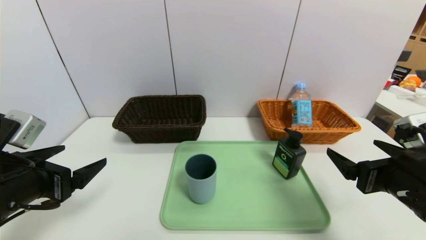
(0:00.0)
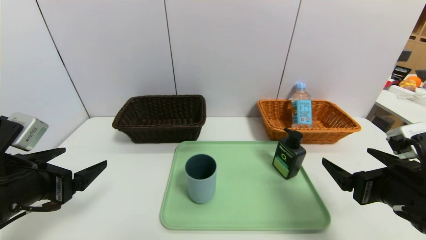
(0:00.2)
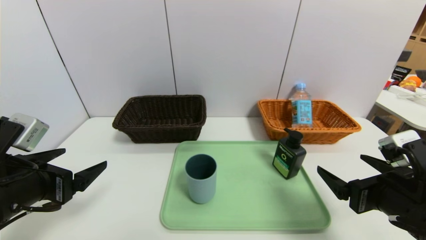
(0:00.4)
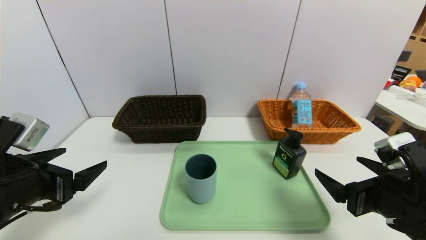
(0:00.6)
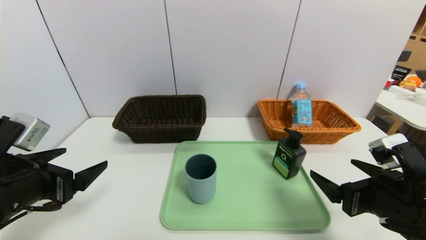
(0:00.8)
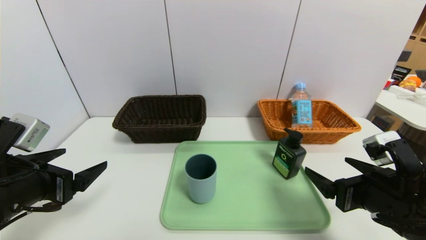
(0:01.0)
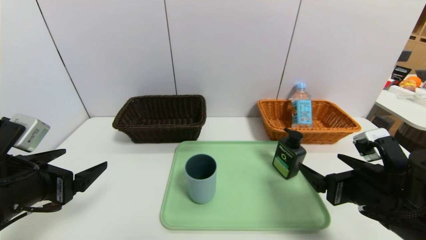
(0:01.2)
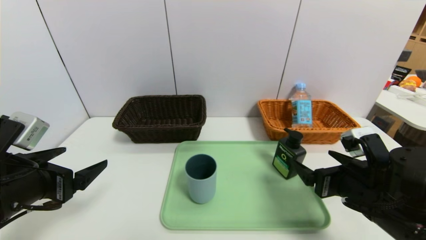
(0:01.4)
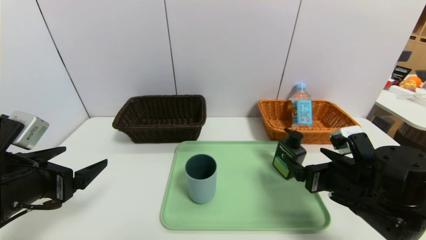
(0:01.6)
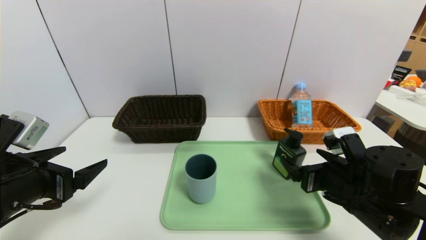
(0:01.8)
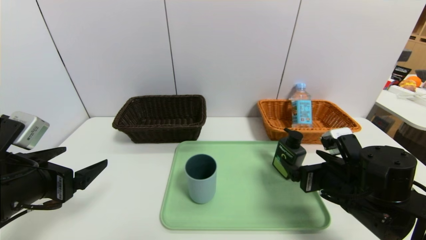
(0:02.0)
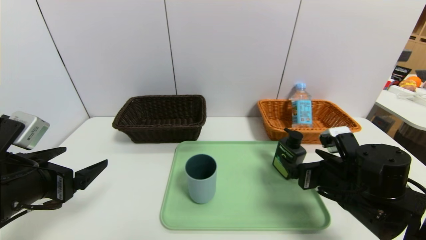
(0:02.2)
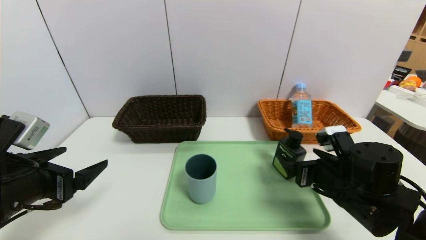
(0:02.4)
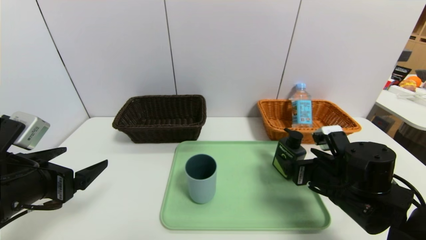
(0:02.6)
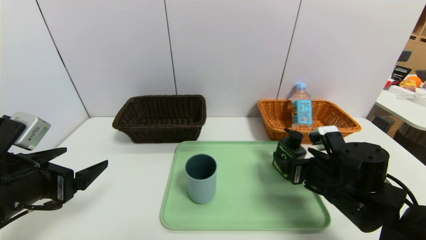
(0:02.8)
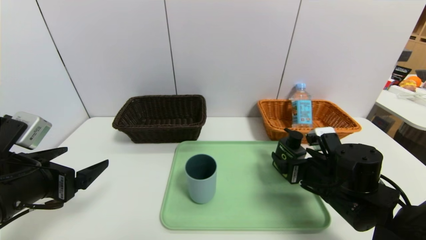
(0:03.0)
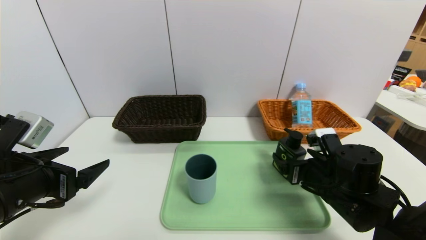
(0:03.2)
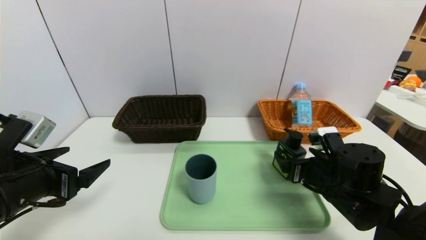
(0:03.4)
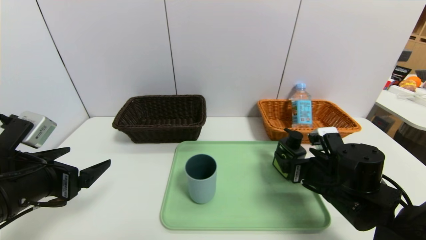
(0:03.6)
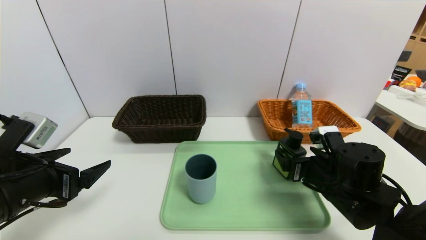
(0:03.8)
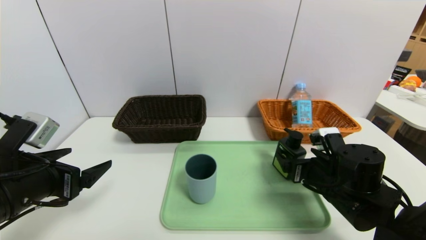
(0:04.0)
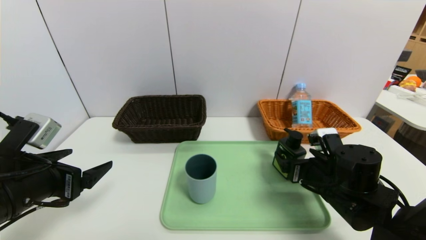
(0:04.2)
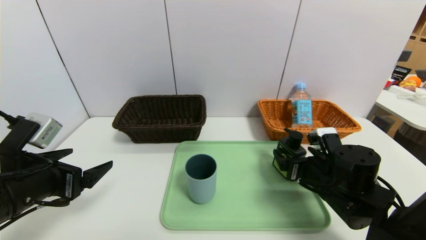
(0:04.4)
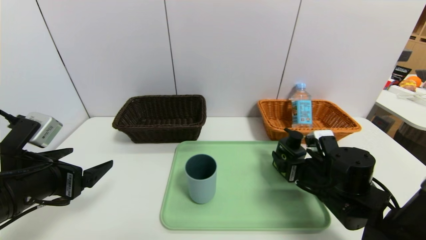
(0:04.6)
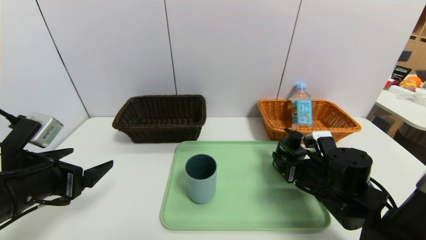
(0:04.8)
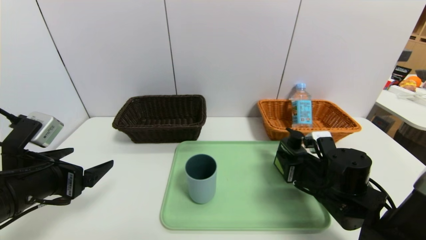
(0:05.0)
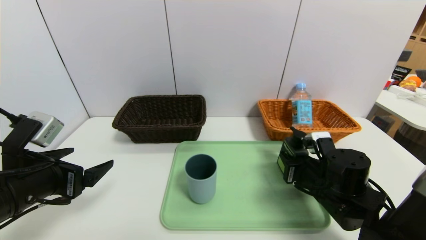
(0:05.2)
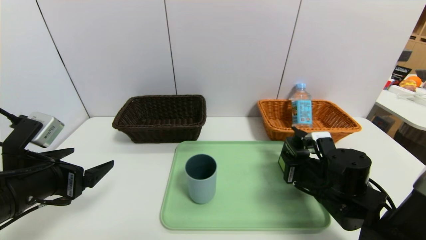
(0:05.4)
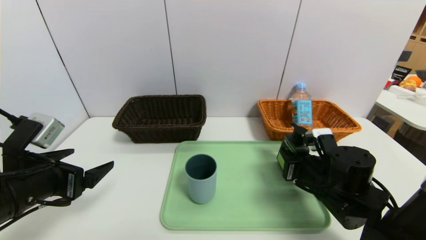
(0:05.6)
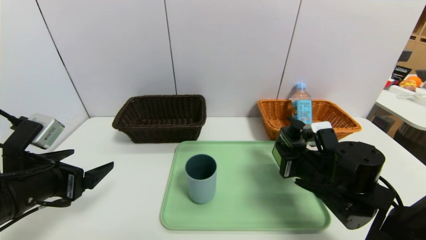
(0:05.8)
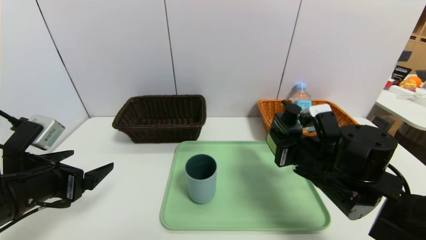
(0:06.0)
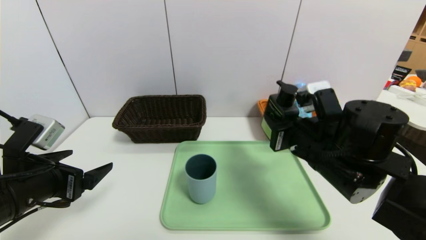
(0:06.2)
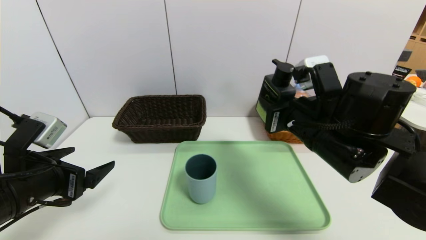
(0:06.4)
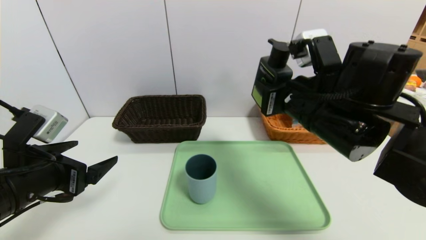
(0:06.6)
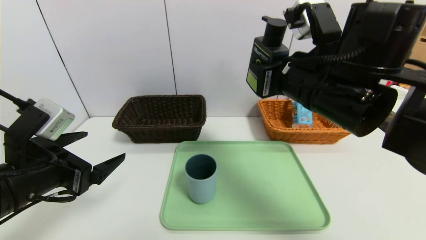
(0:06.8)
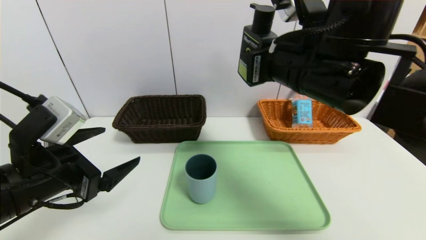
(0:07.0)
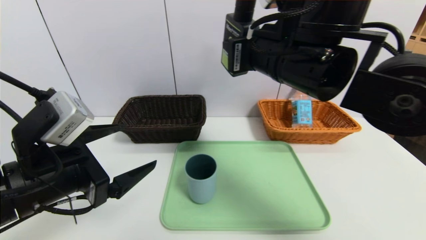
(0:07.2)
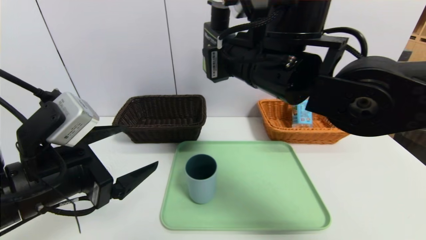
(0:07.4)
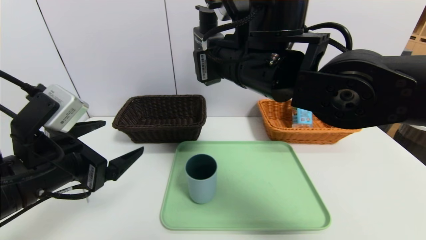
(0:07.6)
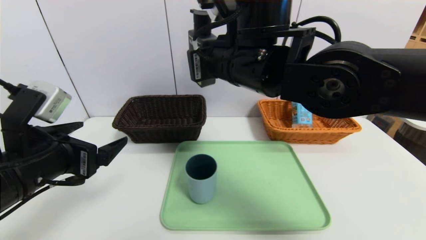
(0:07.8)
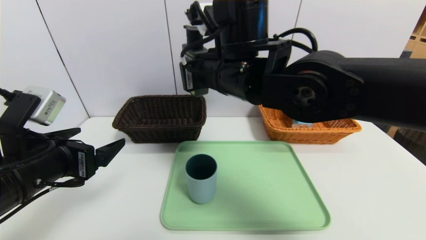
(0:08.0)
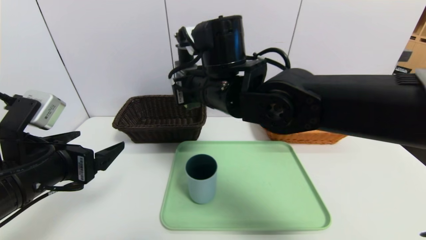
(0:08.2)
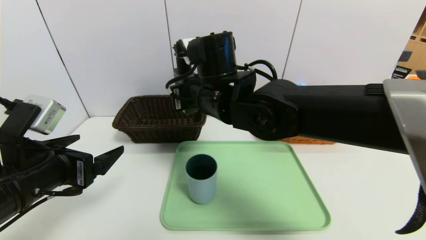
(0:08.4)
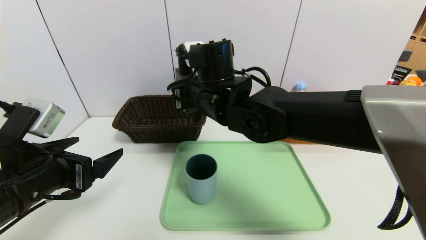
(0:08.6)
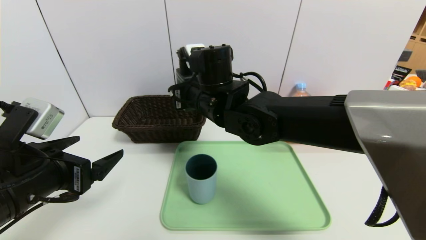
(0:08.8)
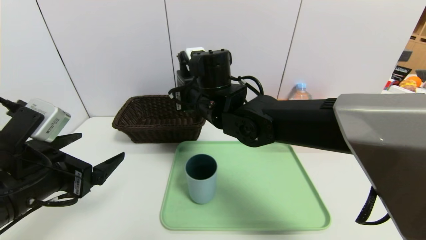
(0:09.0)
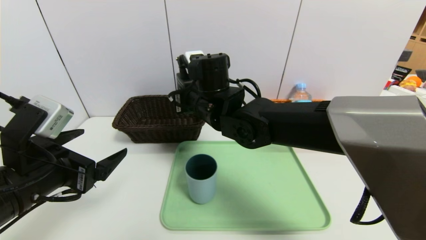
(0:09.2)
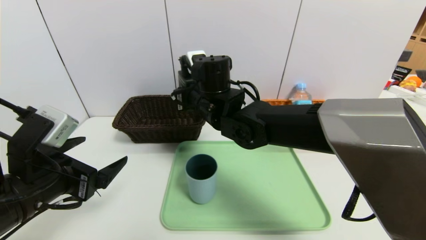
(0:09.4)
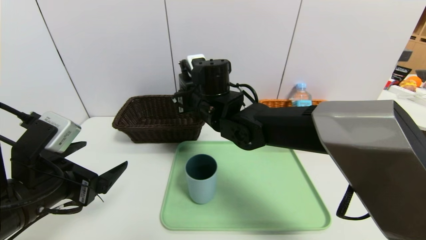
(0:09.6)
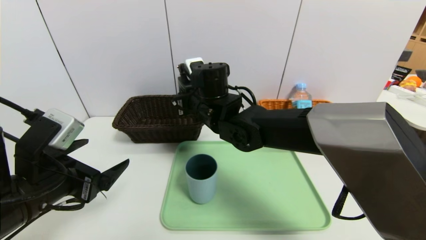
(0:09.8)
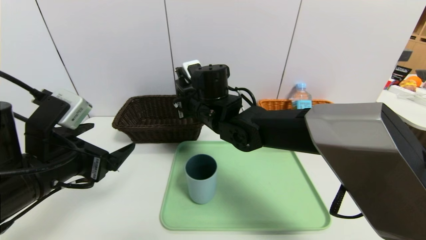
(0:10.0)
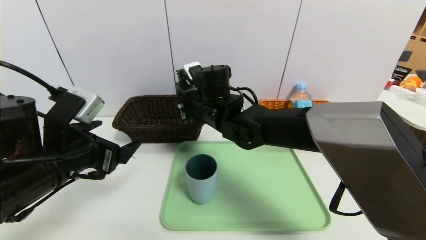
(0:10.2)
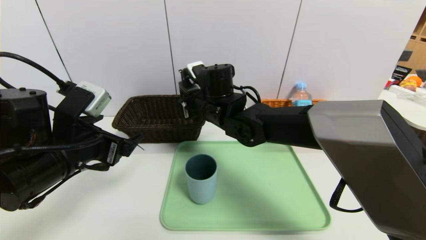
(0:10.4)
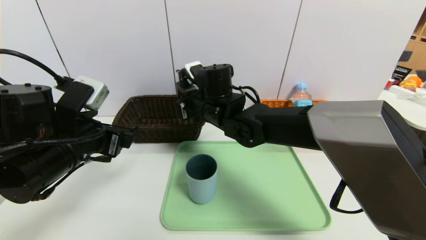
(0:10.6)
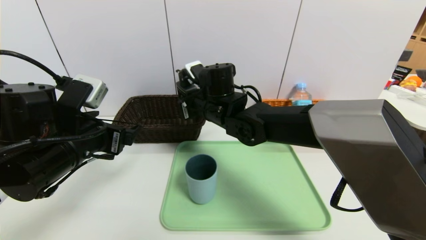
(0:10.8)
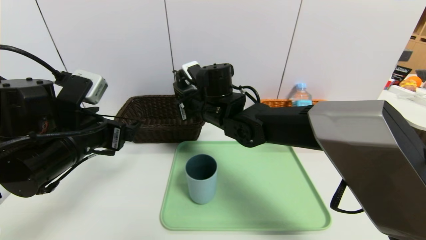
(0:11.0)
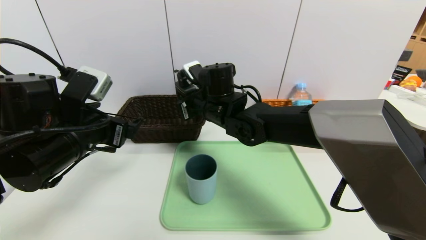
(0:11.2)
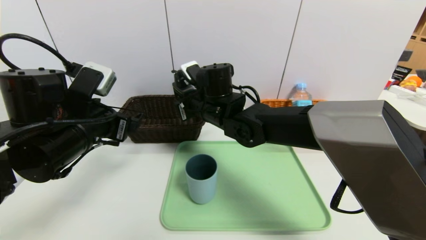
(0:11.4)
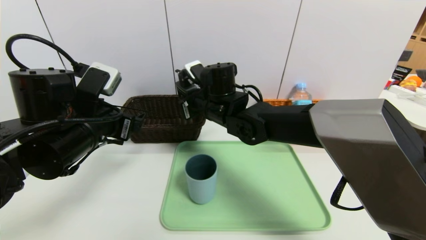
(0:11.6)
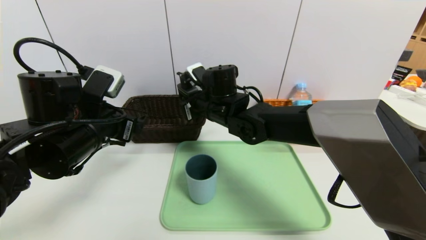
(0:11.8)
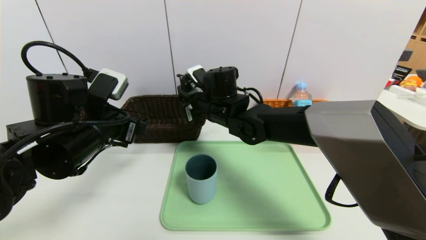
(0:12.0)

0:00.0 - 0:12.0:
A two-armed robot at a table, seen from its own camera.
Task of the whole recording: place the food in the right basket with the right gripper, and place the non food items in the left basket with the left gripper.
0:00.0 - 0:01.6: The right gripper ends up about 10 cm from where it was.
0:01.6 - 0:03.0: There are only small adjustments of the grippers.
0:03.0 - 0:04.4: Both grippers stay put.
0:04.4 - 0:06.0: The right gripper heads upward, covering roughly 5 cm, and closes.
0:06.0 - 0:07.6: The right gripper moves upward and to the left, some 20 cm, while the left gripper changes place by approximately 5 cm.
0:07.6 - 0:09.0: The right gripper travels downward, to the left and forward by approximately 10 cm.
0:09.0 - 0:10.4: The left gripper travels forward by about 5 cm.
0:10.4 - 0:12.0: There are only small adjustments of the grippers.

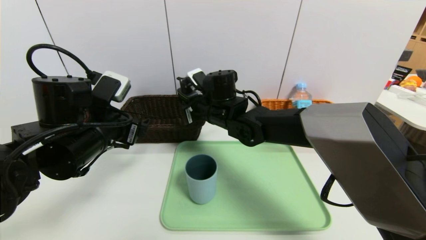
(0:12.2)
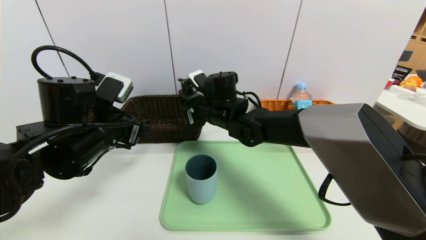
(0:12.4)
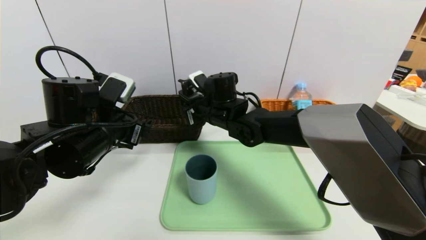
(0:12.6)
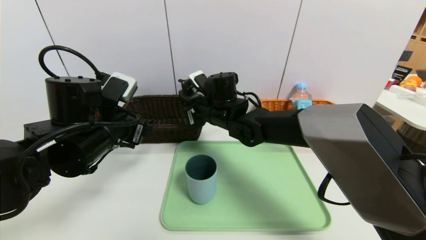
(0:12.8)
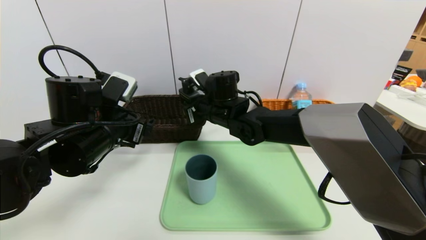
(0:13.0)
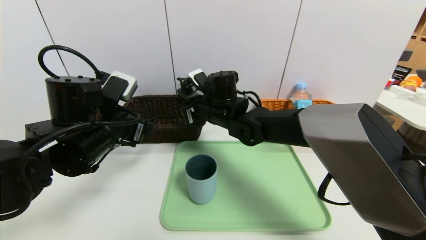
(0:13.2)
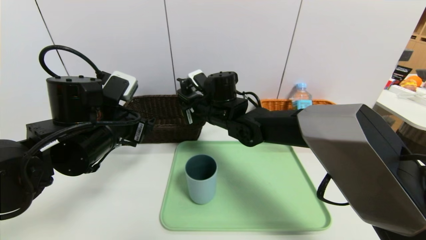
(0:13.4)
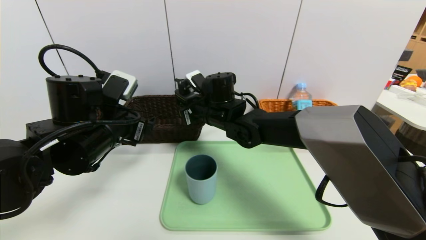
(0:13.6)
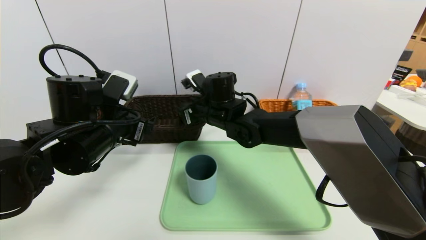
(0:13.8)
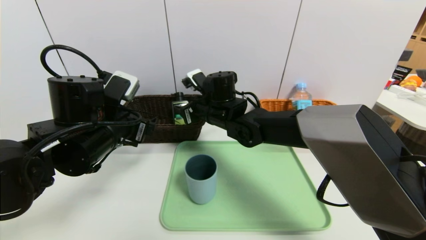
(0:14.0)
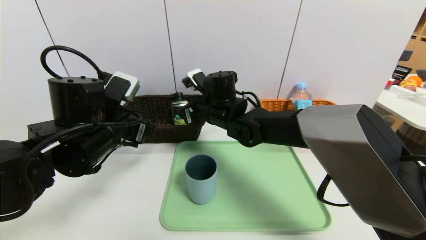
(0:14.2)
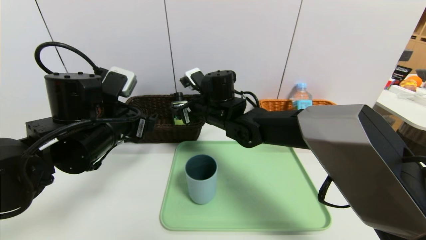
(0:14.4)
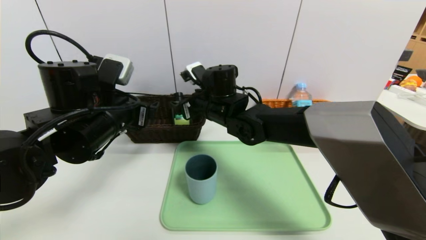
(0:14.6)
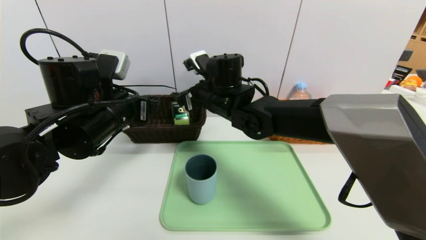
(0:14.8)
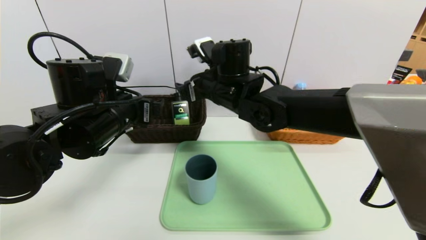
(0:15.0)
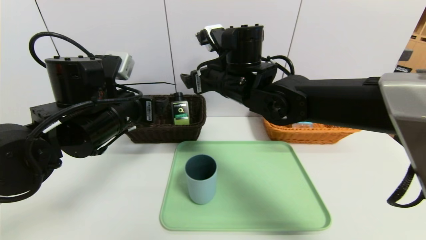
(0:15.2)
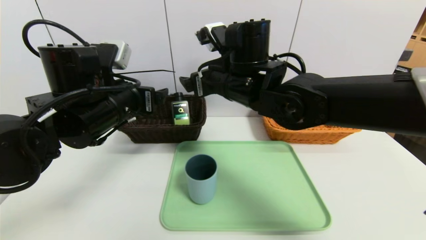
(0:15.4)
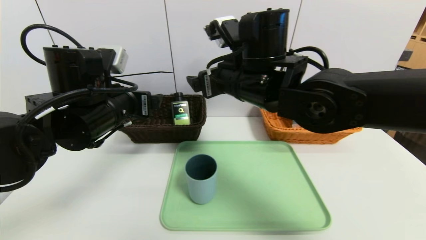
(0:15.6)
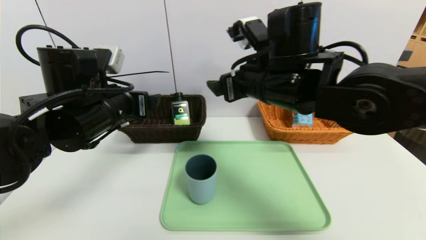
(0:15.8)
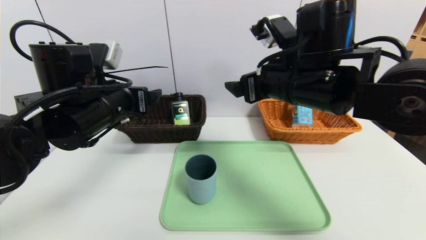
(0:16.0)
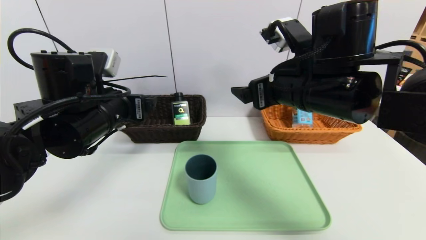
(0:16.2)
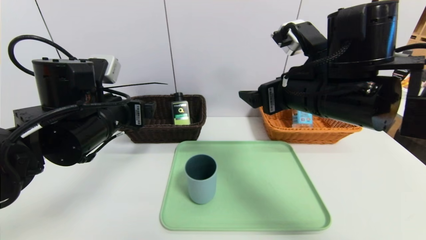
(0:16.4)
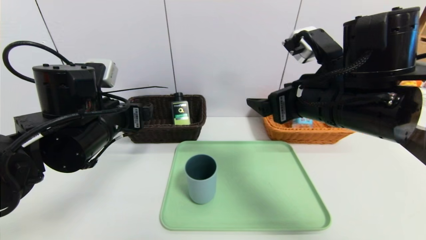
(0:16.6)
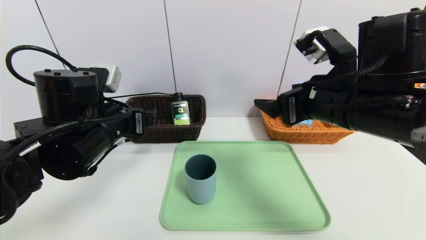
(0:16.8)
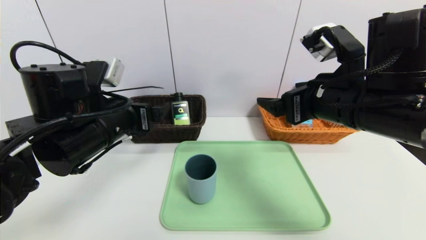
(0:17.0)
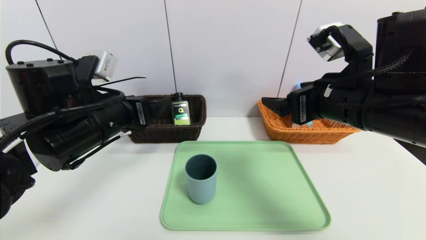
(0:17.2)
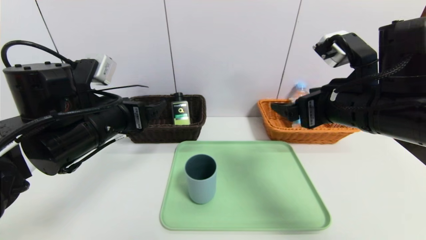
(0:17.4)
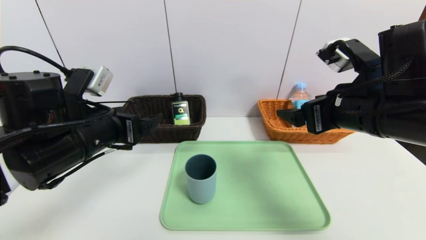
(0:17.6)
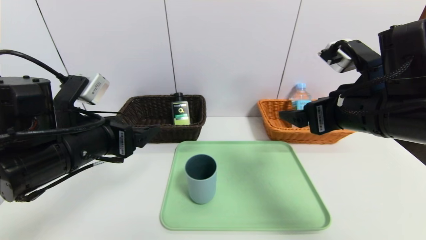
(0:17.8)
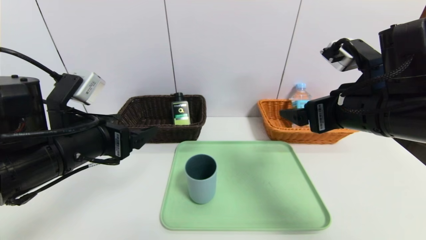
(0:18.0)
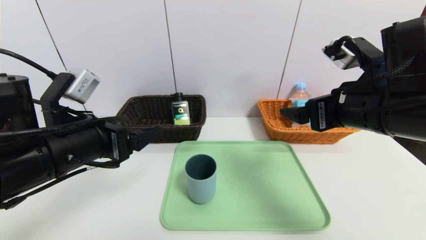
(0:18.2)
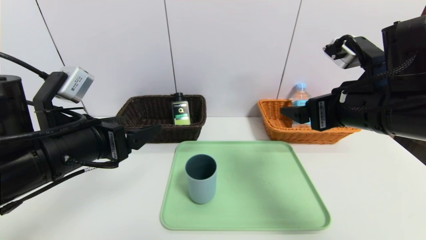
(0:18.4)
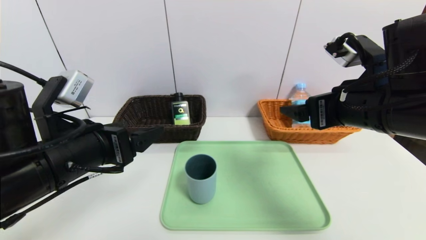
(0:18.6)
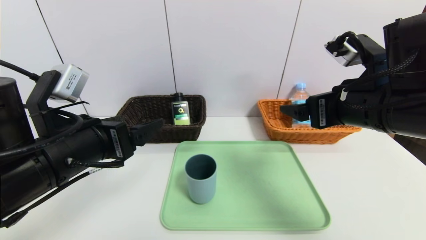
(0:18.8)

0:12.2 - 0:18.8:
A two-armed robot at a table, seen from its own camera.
Task of the whole recording: place the food in the right basket with the right gripper, and place the non food items in the left basket with the left gripper.
Step, 0:12.2 - 0:14.4: Grasp the hard cleanser and put it in the left basket.
0:12.2 - 0:13.8: The two grippers keep their place.
0:13.8 - 0:15.4: The right gripper moves upward and backward, about 10 cm, and opens up.
0:15.4 - 0:17.2: The right gripper shifts some 20 cm to the right and backward.
0:17.2 - 0:18.8: The left gripper shifts about 5 cm backward.
